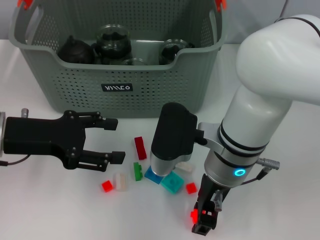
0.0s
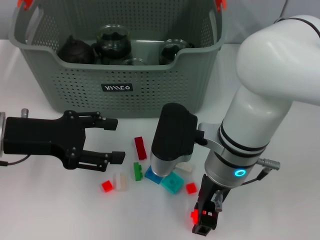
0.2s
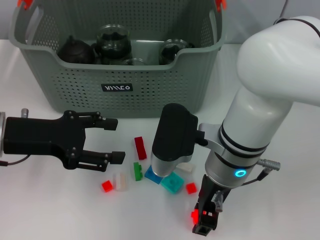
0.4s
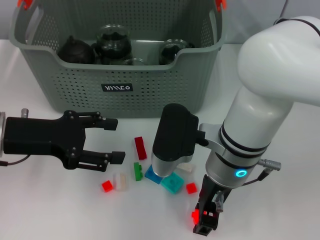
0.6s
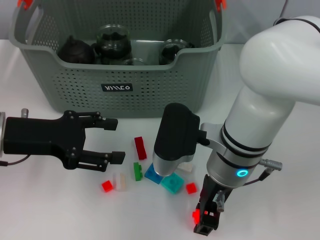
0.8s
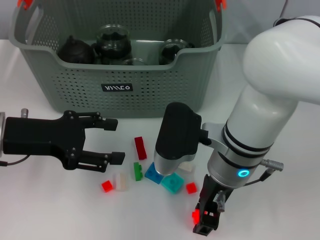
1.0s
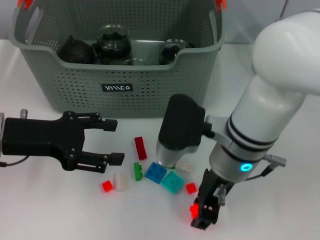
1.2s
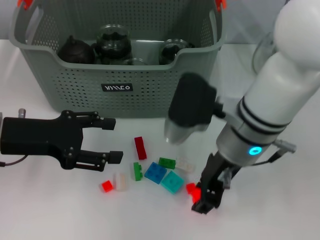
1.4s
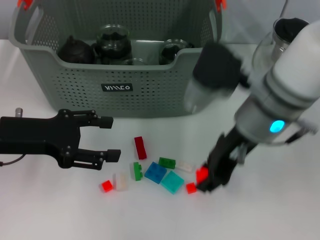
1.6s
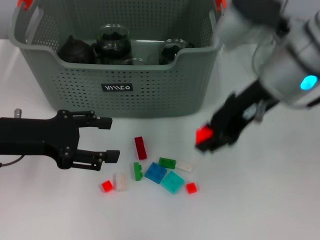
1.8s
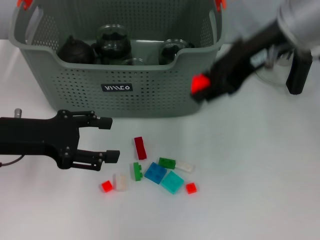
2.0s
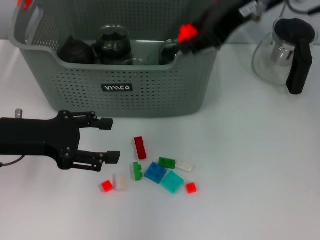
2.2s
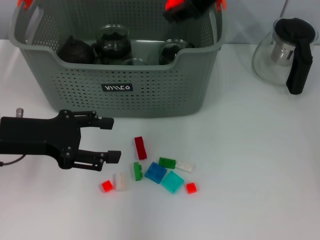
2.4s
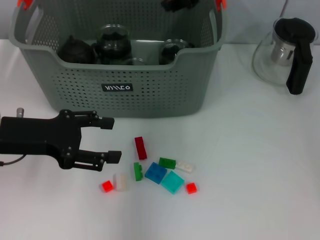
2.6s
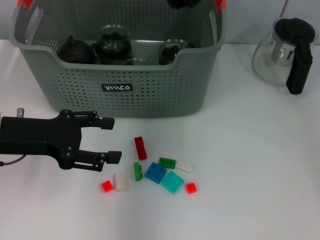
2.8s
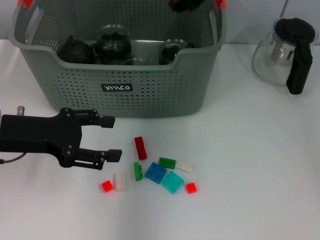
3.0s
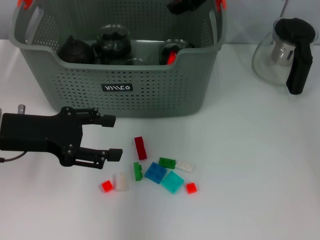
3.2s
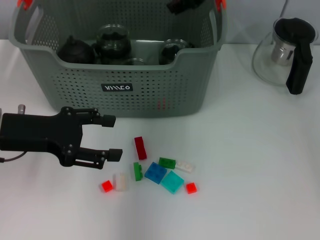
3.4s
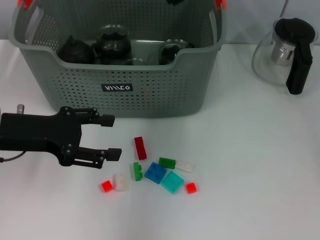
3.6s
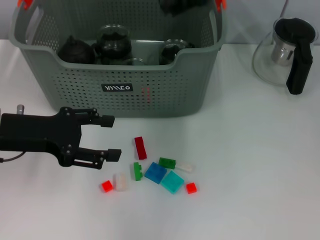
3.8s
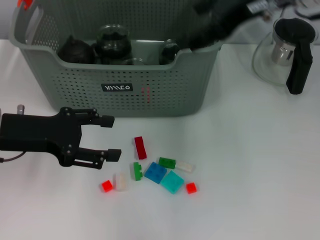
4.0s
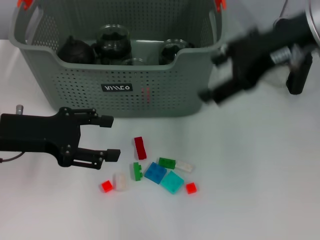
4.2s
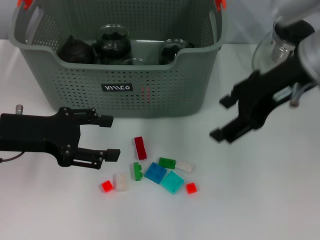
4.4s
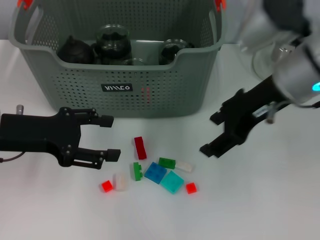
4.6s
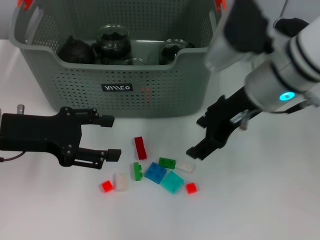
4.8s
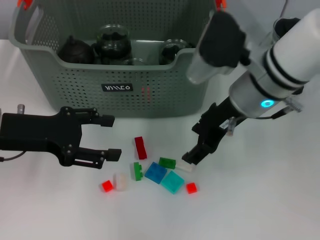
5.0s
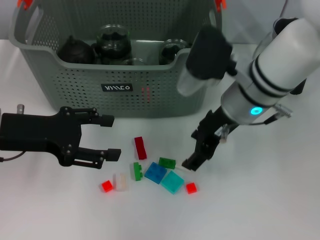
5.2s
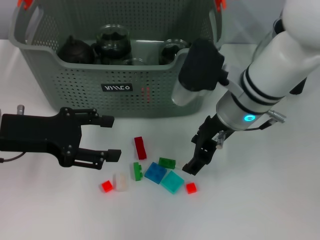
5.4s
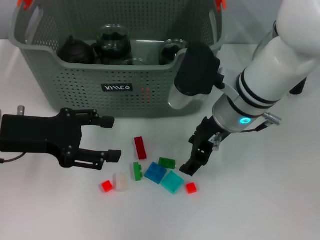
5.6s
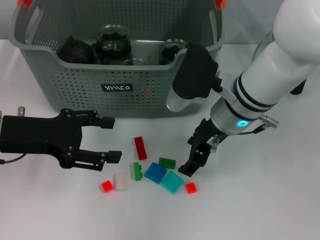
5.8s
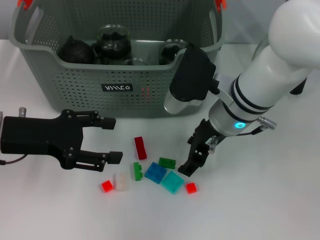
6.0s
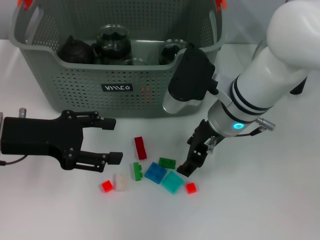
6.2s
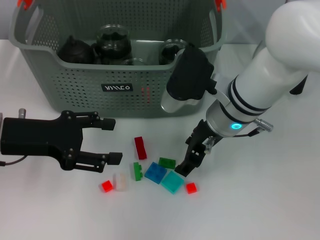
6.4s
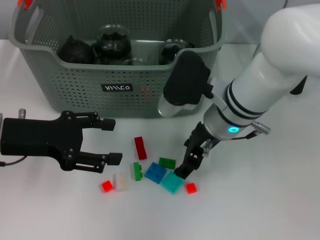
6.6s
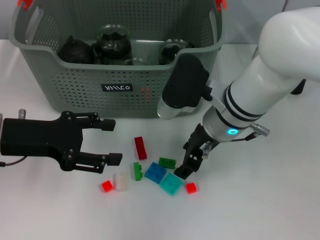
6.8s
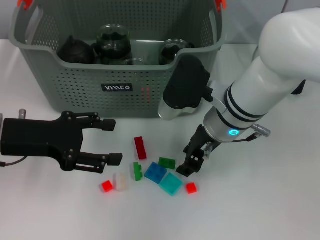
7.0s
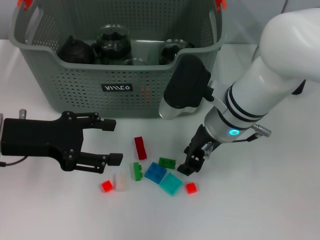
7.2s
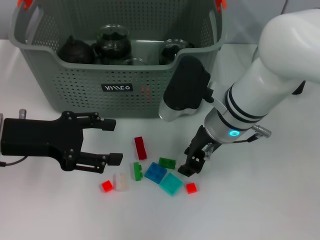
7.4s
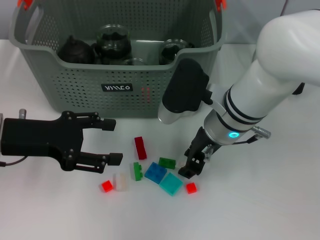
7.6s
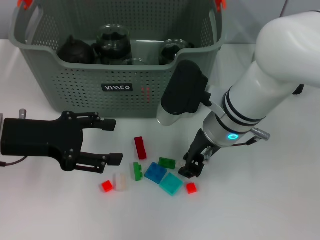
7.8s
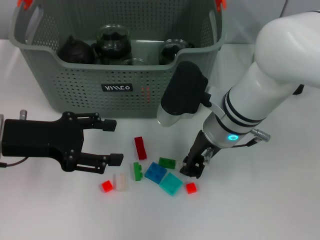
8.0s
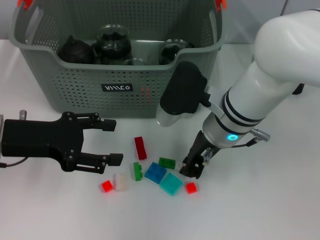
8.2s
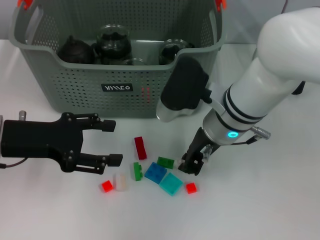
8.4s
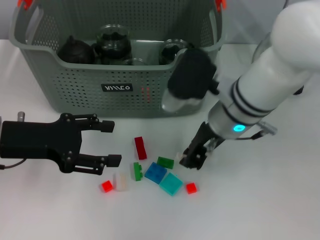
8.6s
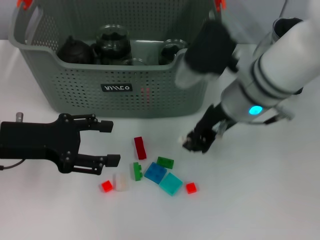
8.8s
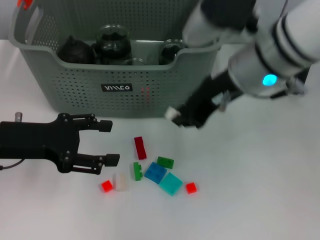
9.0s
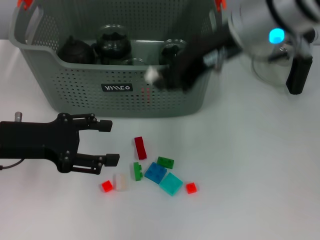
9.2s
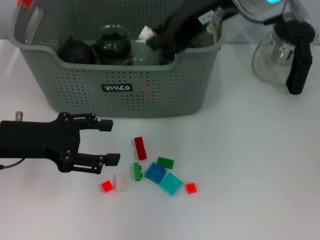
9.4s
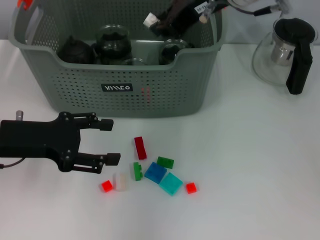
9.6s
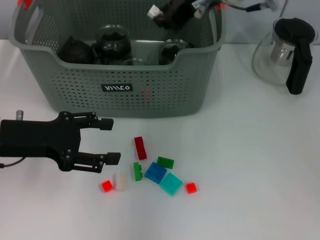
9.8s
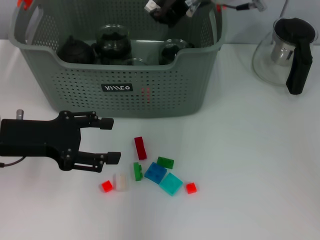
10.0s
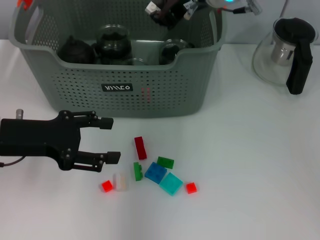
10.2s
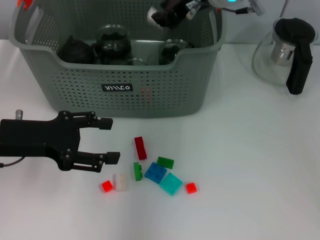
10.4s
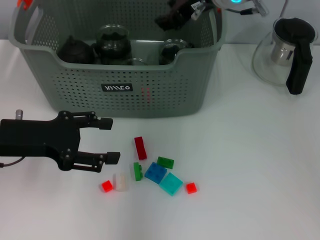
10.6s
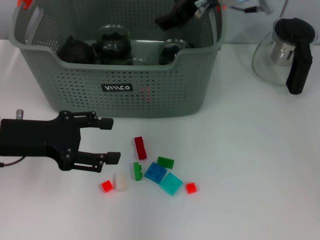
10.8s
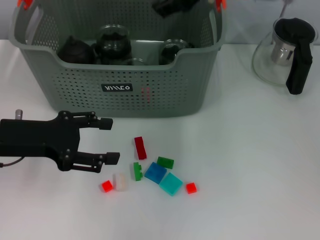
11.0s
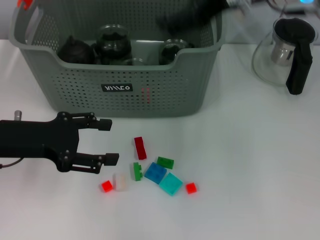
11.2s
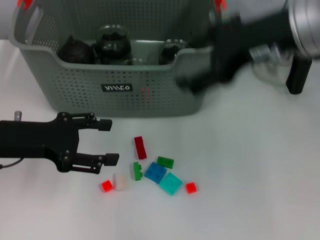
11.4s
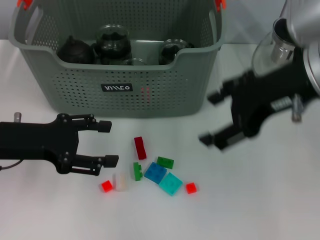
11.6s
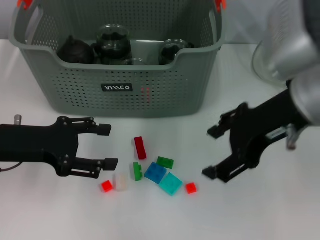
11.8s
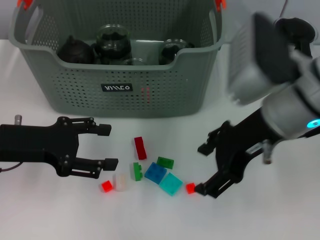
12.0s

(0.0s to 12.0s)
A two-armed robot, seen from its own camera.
Task of the whole recording: pick up the teacup on the table and place it into the storage bin, pick up the block on the table and place it into the storage bin.
Step, 1.2s - 3.2s: Place the orange block in the storage box with right gripper.
Step, 3.4s - 8.2s: Grasp the white block with right gripper.
Step, 8.4s - 10.4s: Place the white block in the storage box with right gripper.
0.0s - 1.6s: The right gripper travels upward by approximately 5 cm.
1.6s - 3.0s: The right gripper moves forward and upward, about 15 cm.
3.0s - 4.4s: The right gripper travels backward and to the right by about 15 cm, and opens.
4.4s - 6.0s: The right gripper shifts roughly 15 cm downward and to the left.
6.0s - 7.6s: The right gripper closes its fingers.
7.6s - 9.0s: The right gripper goes some 10 cm upward.
9.0s - 10.4s: The right gripper goes about 10 cm forward.
10.4s - 12.0s: The right gripper travels backward and to the right by approximately 15 cm, and opens up.

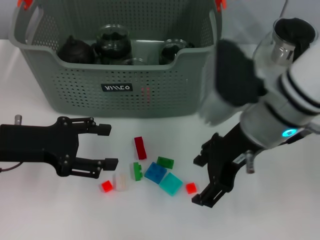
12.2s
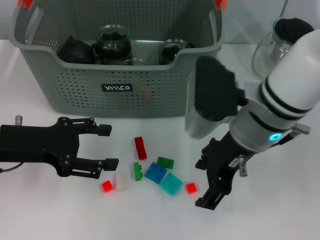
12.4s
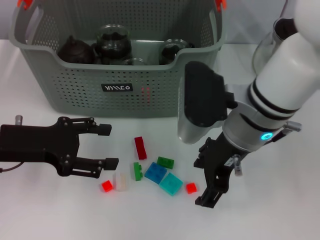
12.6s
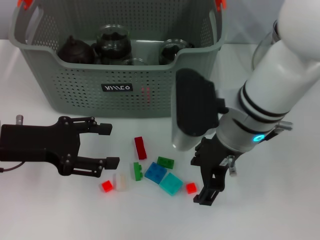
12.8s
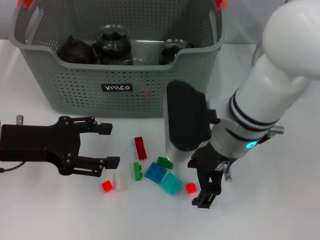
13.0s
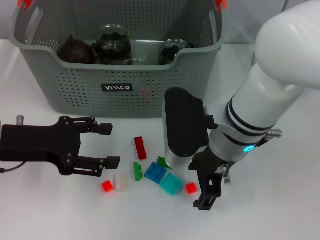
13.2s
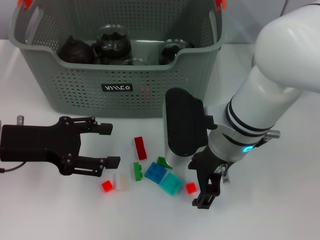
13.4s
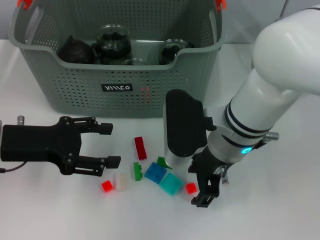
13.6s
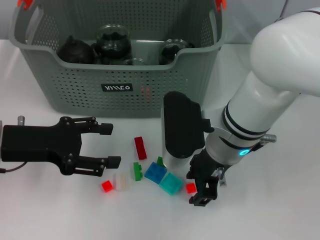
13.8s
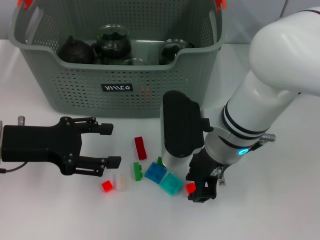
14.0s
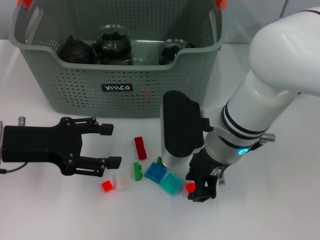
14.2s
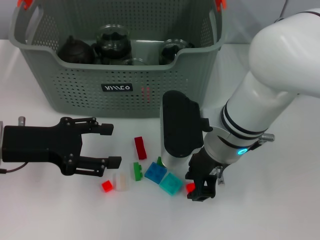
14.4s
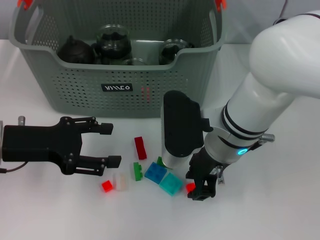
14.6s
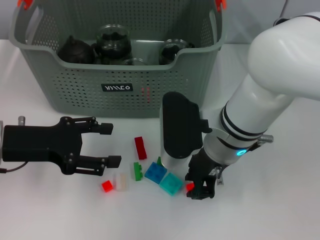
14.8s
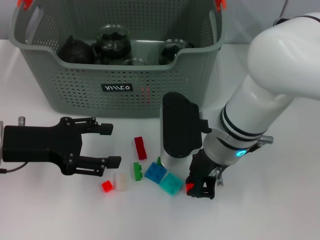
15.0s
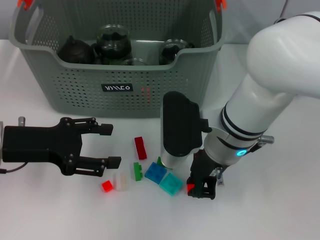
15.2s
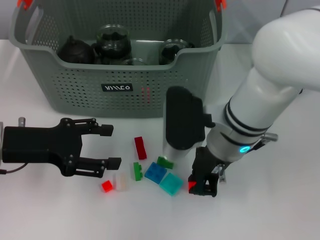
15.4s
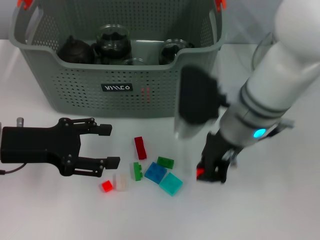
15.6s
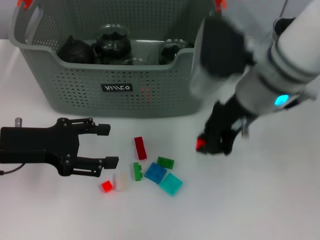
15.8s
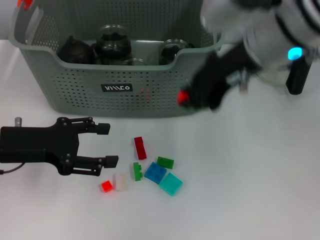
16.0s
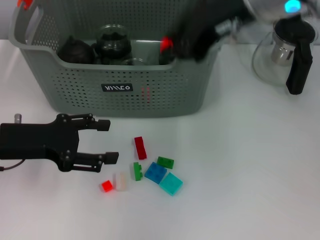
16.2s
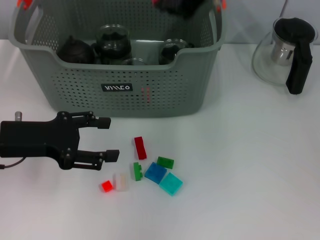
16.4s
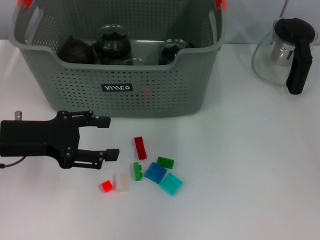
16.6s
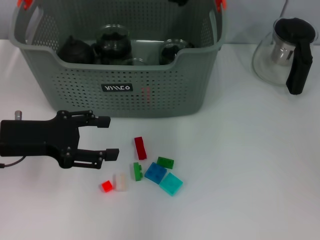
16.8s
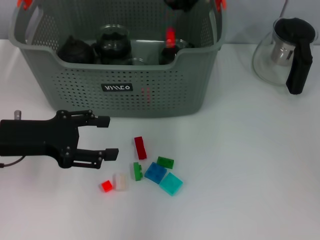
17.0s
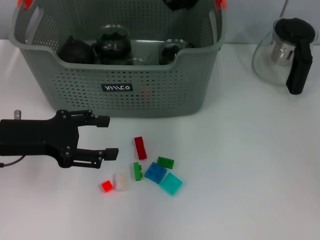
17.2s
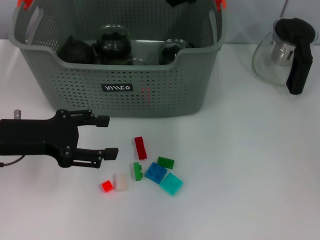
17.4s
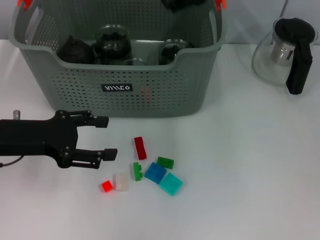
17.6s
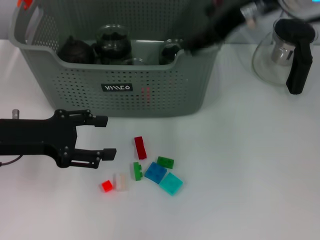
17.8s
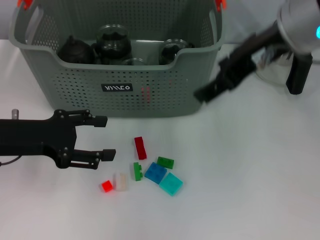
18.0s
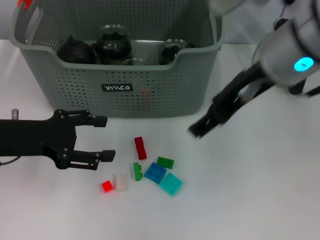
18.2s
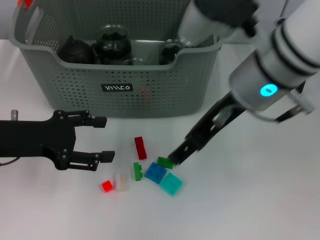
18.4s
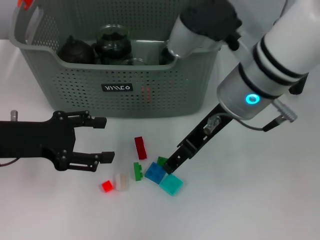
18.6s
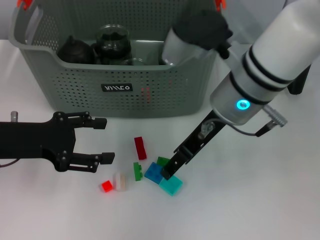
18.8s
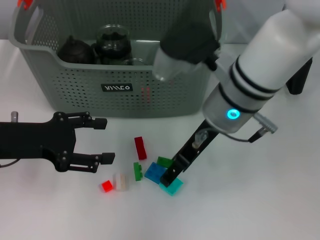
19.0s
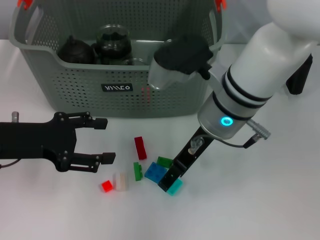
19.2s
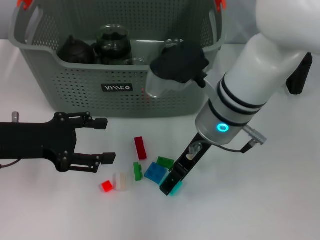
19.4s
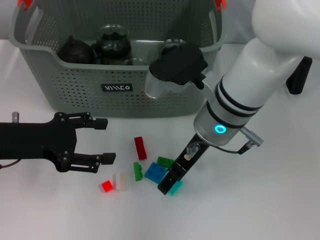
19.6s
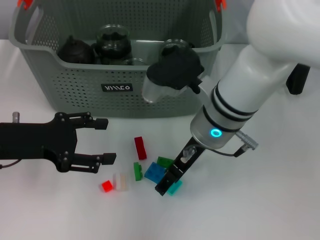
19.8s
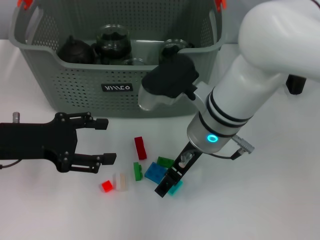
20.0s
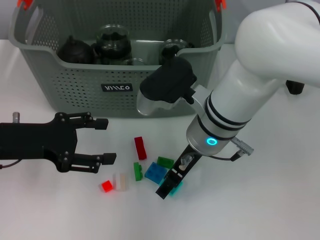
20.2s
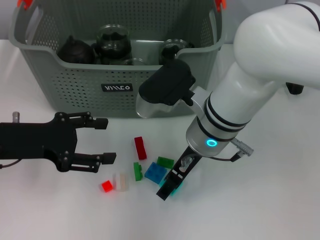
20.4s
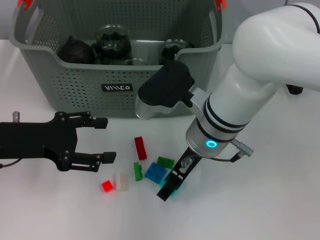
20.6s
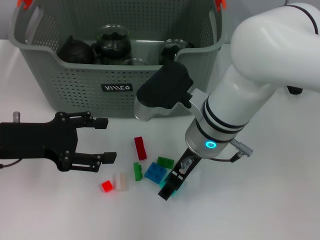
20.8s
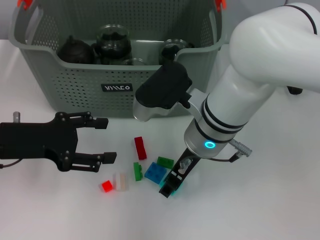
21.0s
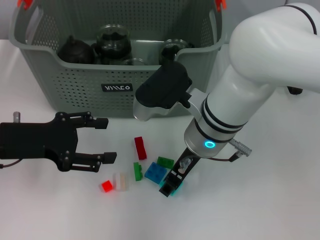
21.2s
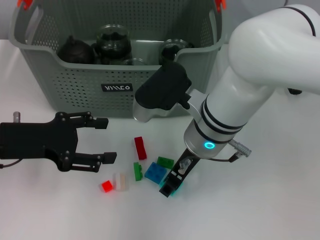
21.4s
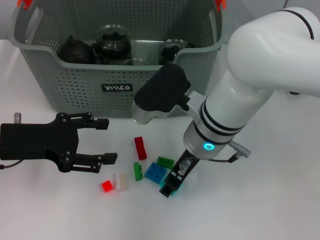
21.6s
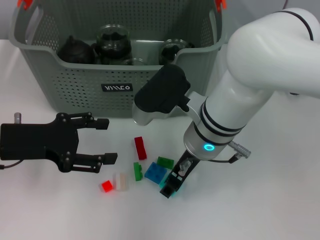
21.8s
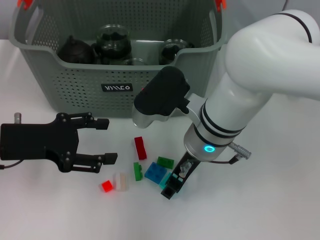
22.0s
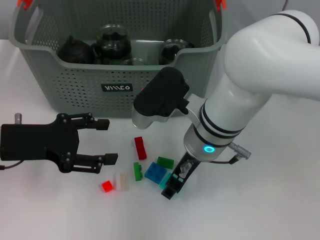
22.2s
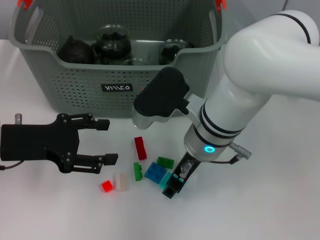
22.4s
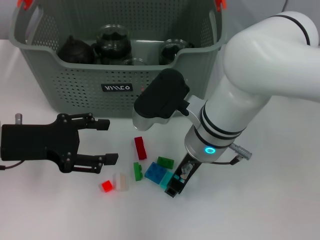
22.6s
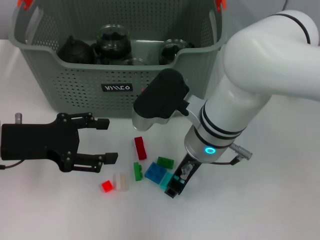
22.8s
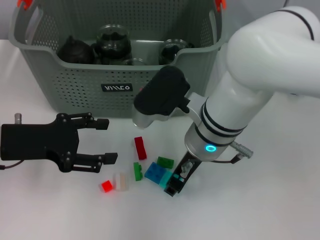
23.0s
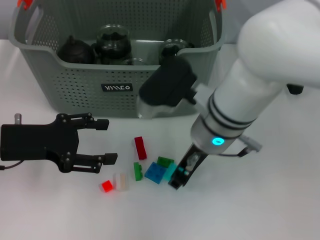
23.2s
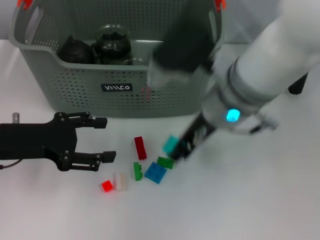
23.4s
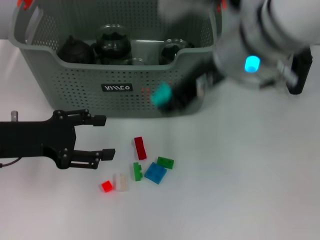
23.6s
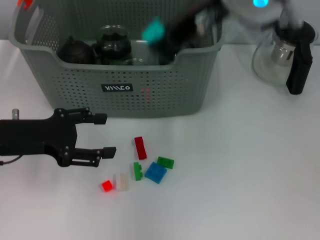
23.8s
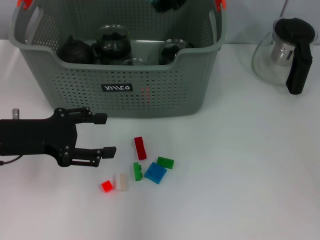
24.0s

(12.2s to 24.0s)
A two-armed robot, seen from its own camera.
Task of the whole recording: pick up the teacup on the table and place it into the storage bin, pick up the block on the table and place it into the storage bin.
Step, 12.2s - 15.0s: Grasp the orange block with right gripper.
Step, 15.2s - 17.0s: Place the orange block in the storage box with right gripper.
Step, 17.2s - 22.8s: Grasp the light blue block with right gripper.
12.2s - 13.6s: The right gripper moves downward, about 5 cm.
13.6s - 15.2s: The right gripper closes its fingers.
15.2s - 16.6s: The right gripper heads upward and forward, covering approximately 20 cm.
16.6s - 18.2s: The right gripper heads backward, covering approximately 10 cm, and opens its fingers.
18.2s - 19.6s: The right gripper shifts some 15 cm downward and to the left.
19.6s - 21.0s: There are only small adjustments of the grippers.
21.0s - 22.6s: Both grippers stay about where they are.
22.6s - 24.0s: The right gripper heads upward, covering about 20 cm.
